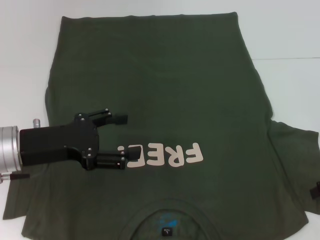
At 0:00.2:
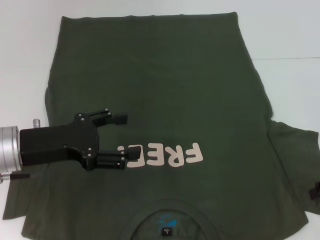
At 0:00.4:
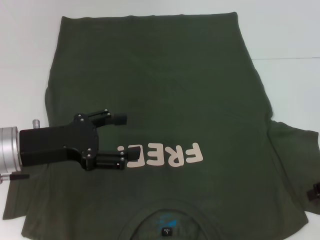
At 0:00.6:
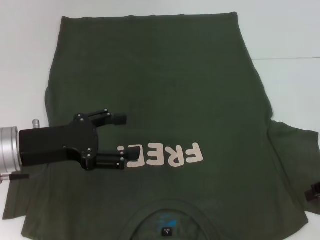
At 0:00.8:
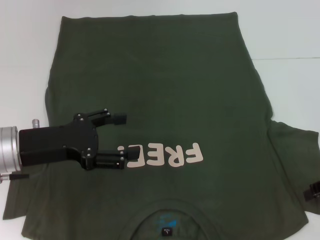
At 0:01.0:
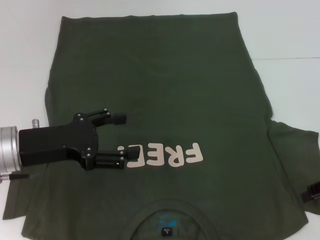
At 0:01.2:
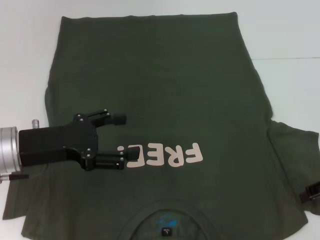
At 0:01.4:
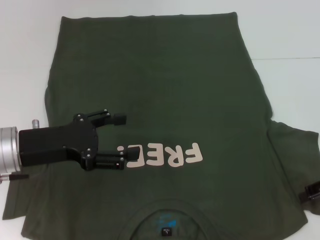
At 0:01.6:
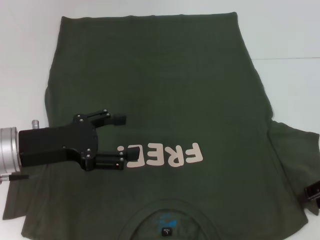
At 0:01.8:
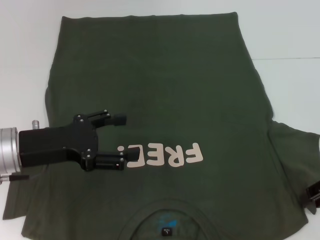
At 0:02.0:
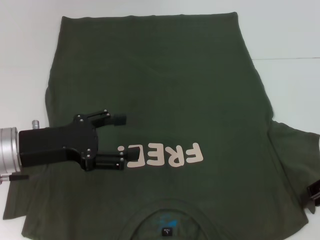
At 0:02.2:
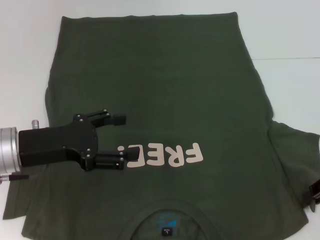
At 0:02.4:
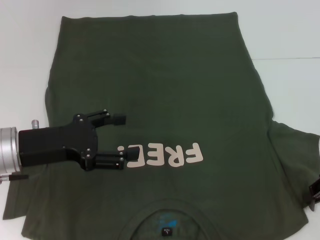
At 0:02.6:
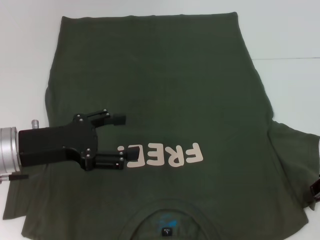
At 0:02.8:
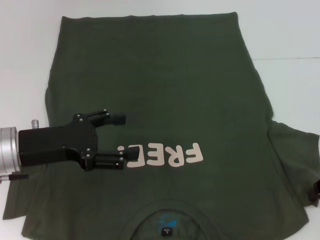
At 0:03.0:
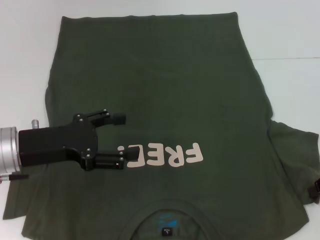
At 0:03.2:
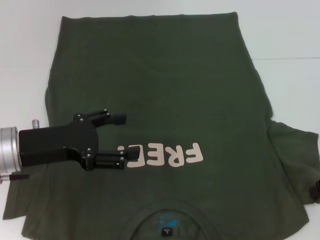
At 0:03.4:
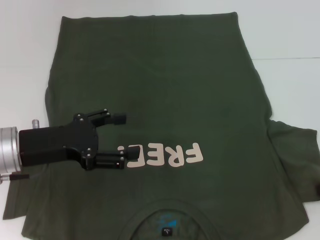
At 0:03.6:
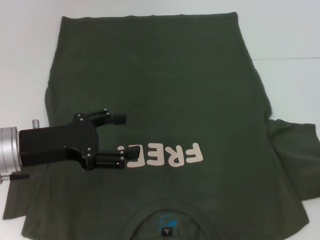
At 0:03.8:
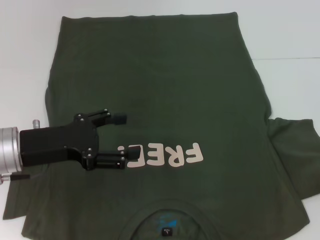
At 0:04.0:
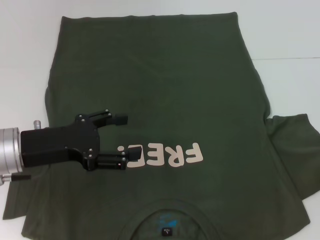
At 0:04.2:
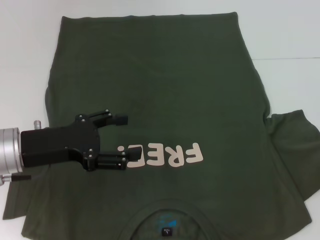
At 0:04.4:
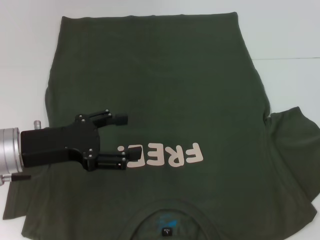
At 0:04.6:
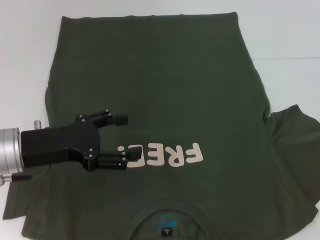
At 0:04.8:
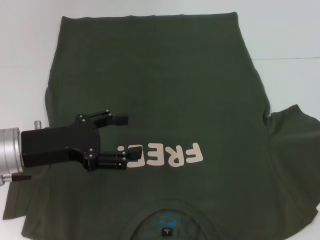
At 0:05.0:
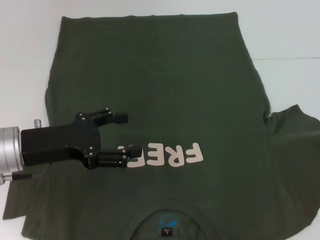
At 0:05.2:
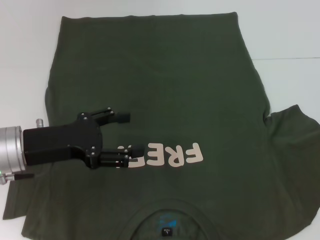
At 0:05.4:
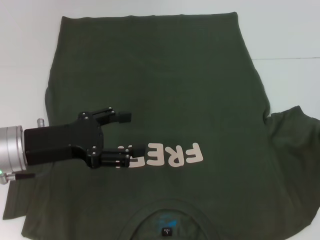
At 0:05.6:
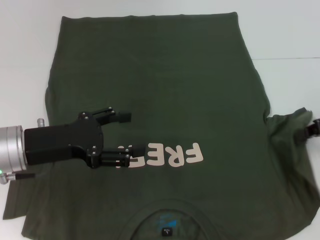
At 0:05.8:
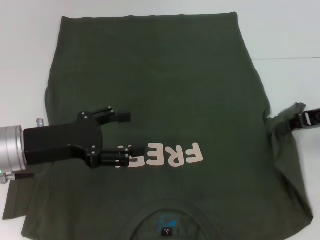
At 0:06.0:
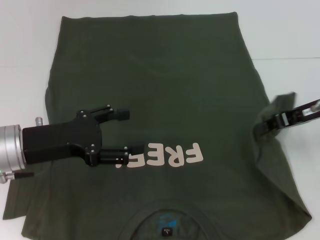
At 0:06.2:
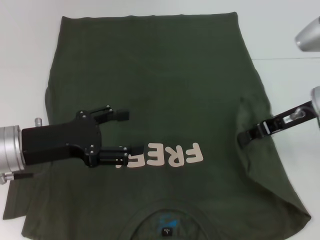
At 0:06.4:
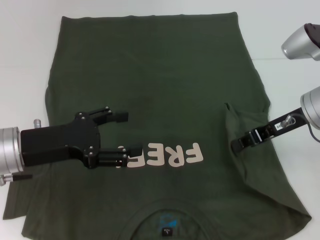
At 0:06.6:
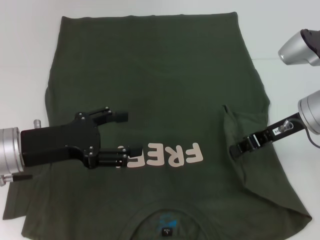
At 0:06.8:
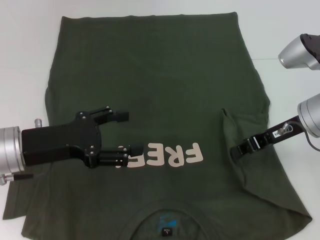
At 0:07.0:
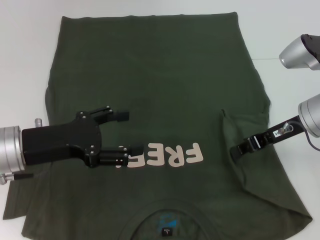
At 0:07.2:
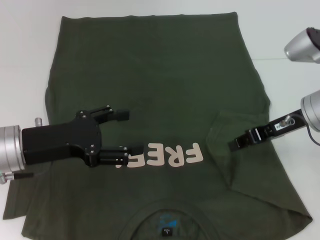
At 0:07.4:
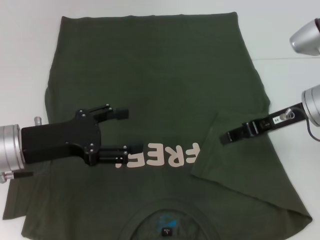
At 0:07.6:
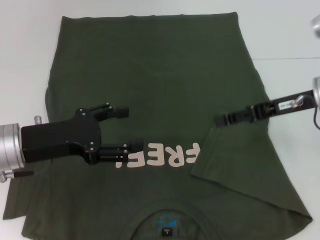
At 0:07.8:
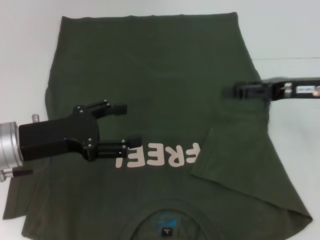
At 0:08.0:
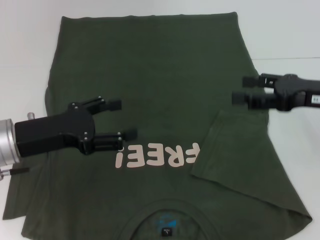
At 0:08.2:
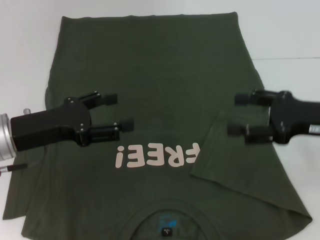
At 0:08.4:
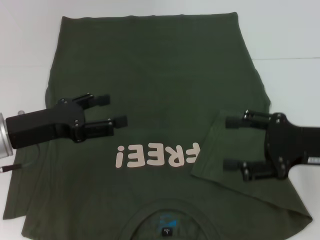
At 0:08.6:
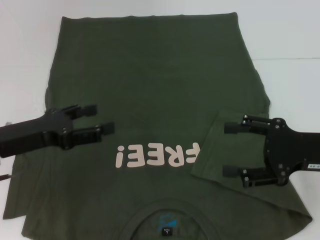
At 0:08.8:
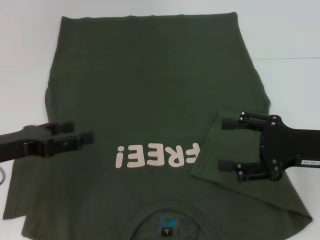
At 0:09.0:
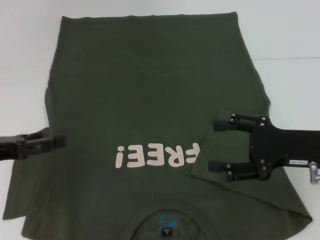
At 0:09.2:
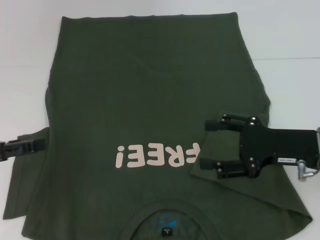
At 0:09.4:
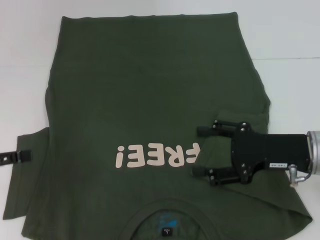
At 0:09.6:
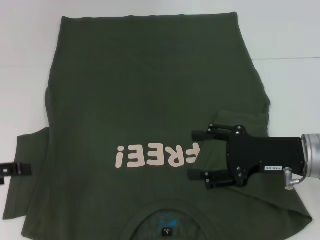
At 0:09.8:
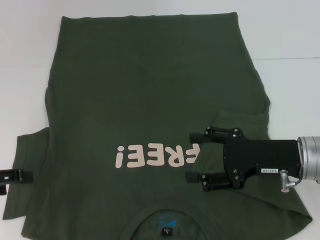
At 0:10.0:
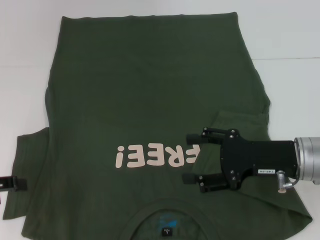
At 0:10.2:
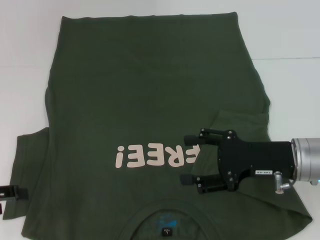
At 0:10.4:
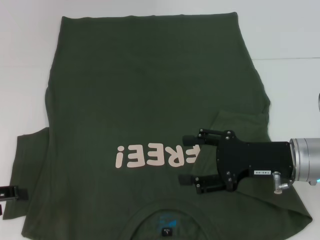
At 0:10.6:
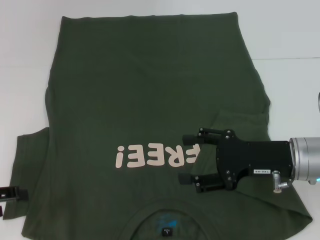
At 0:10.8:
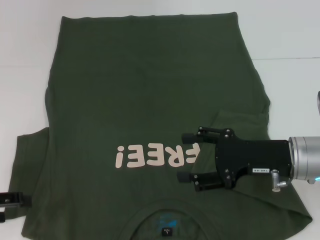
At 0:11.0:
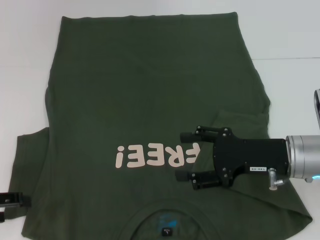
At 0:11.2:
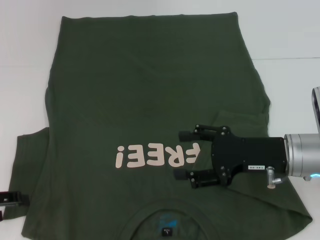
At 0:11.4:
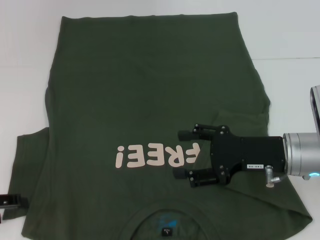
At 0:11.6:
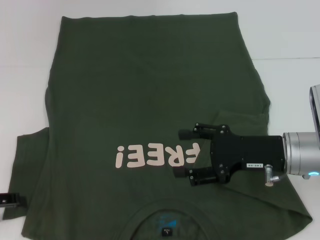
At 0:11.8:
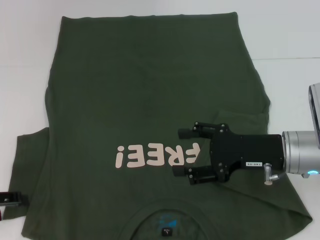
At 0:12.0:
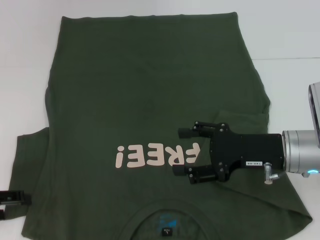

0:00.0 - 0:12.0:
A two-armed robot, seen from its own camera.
Step, 0:00.0 - 0:07.2: Fold the bottom right sleeve with your right hand.
0:00.0 - 0:01.6: The grippers stay close to where they were, moving slightly.
0:03.0 - 0:04.4: The right gripper changes place by some 5 cm.
0:04.4 - 0:06.0: The right gripper is displaced to the left by about 10 cm.
0:06.0 - 0:07.6: The right gripper opens up.
0:07.6 - 0:09.0: The right gripper shifts some 10 cm backward, and opens. The left gripper shifts approximately 10 cm to the left.
0:09.0 - 0:10.4: The left gripper ends up about 5 cm from where it was.
0:10.4 - 0:12.0: The grippers move only a little.

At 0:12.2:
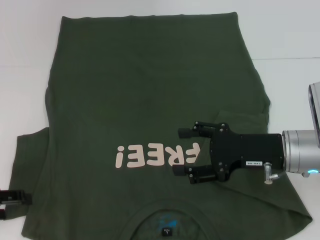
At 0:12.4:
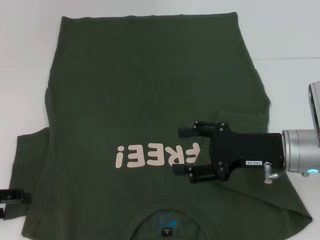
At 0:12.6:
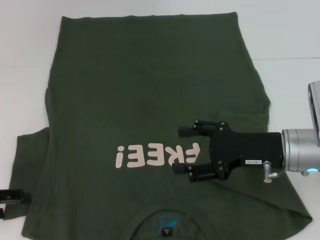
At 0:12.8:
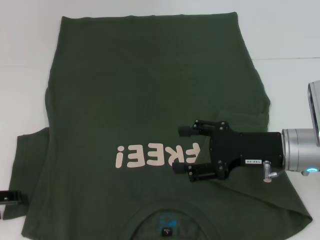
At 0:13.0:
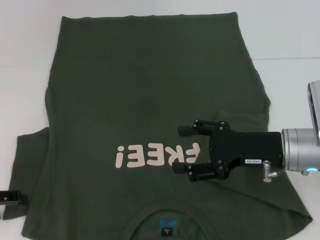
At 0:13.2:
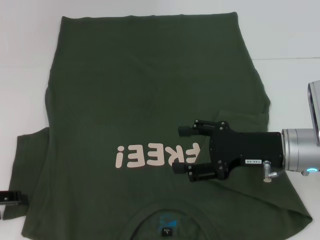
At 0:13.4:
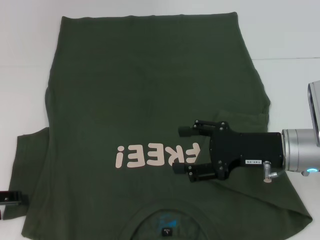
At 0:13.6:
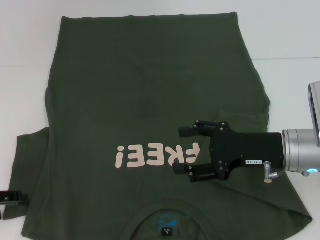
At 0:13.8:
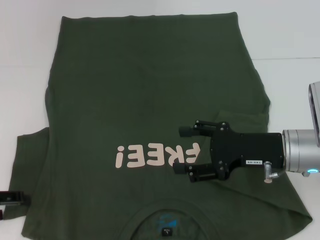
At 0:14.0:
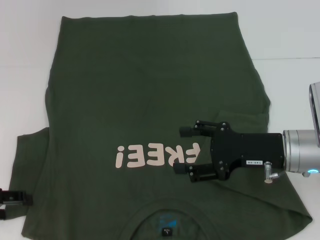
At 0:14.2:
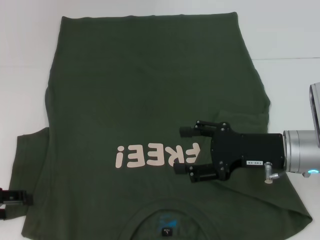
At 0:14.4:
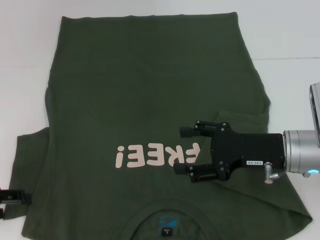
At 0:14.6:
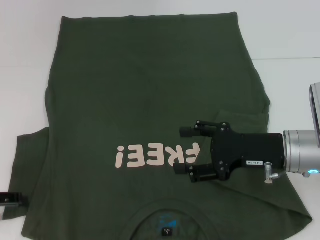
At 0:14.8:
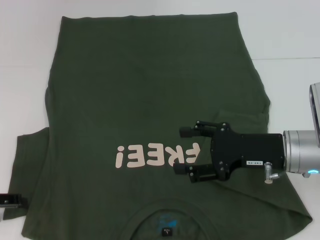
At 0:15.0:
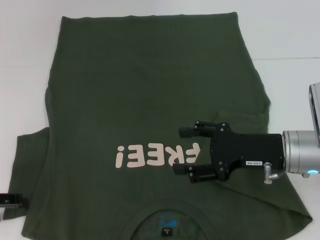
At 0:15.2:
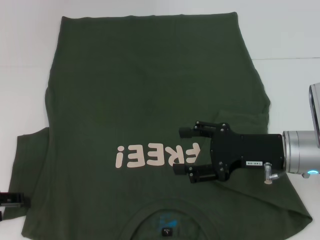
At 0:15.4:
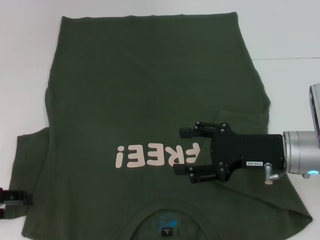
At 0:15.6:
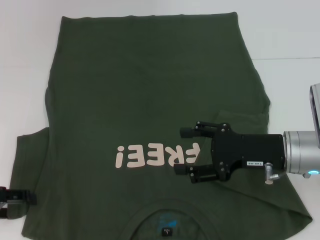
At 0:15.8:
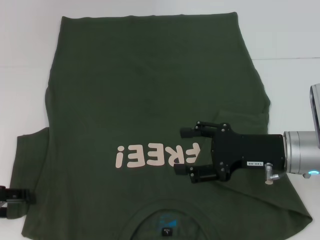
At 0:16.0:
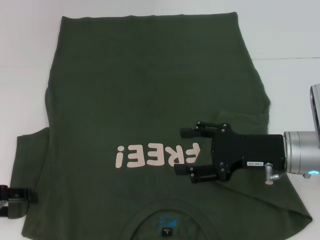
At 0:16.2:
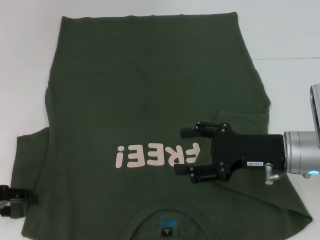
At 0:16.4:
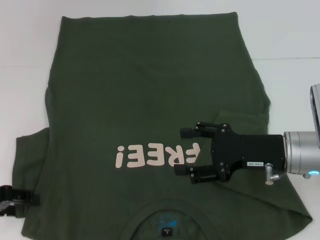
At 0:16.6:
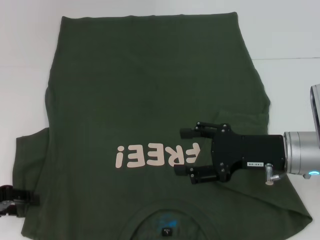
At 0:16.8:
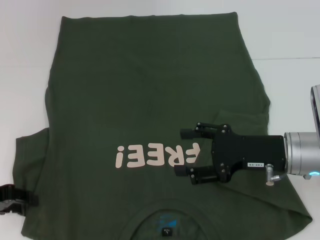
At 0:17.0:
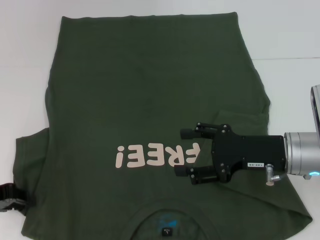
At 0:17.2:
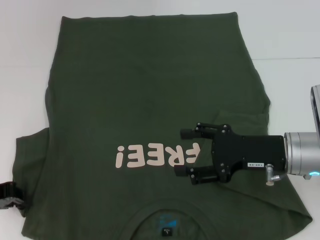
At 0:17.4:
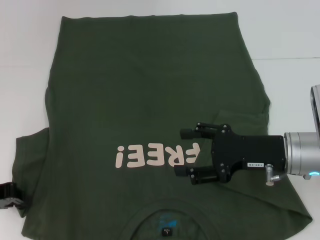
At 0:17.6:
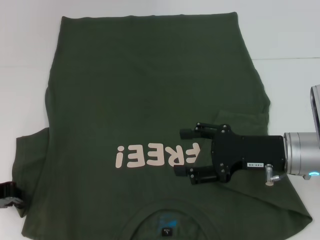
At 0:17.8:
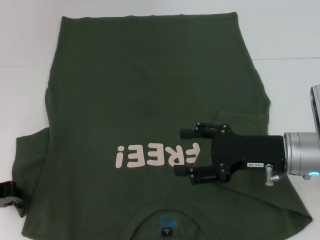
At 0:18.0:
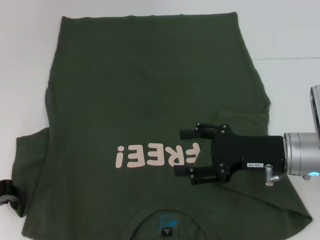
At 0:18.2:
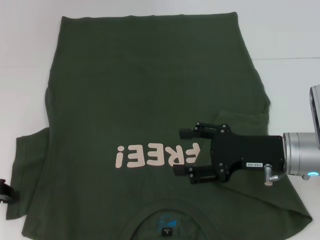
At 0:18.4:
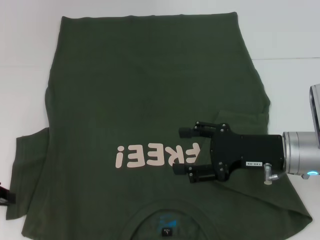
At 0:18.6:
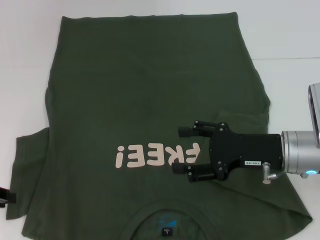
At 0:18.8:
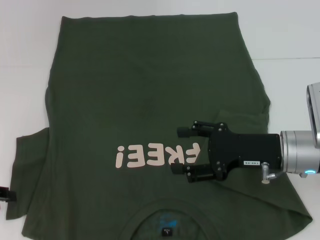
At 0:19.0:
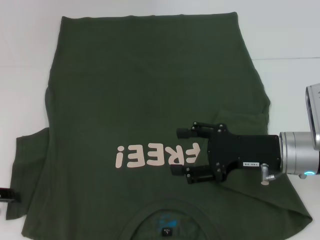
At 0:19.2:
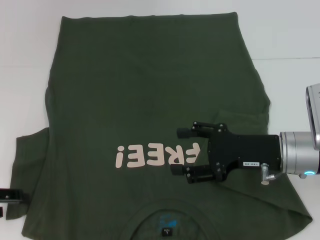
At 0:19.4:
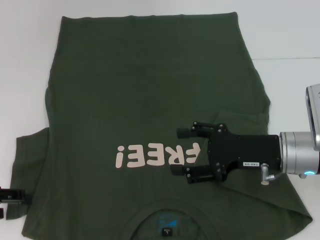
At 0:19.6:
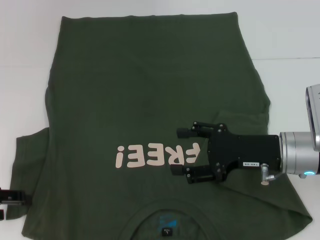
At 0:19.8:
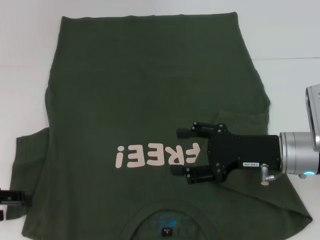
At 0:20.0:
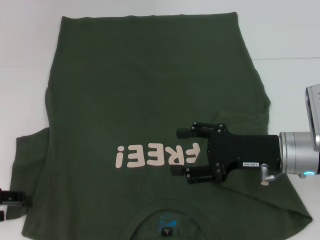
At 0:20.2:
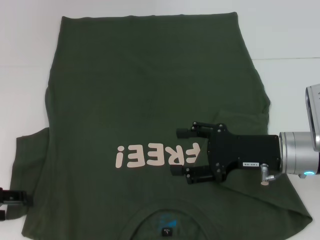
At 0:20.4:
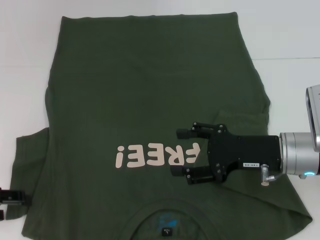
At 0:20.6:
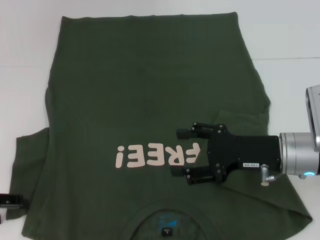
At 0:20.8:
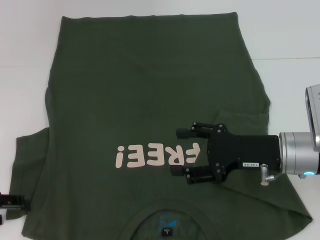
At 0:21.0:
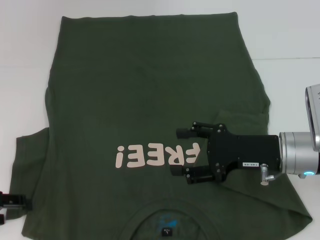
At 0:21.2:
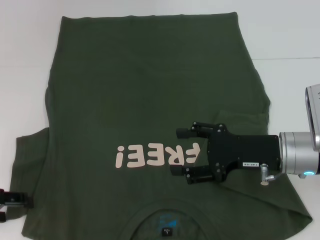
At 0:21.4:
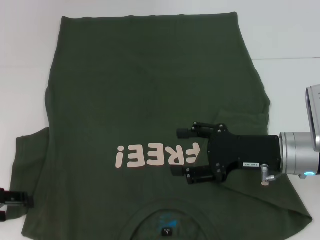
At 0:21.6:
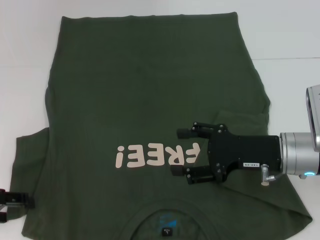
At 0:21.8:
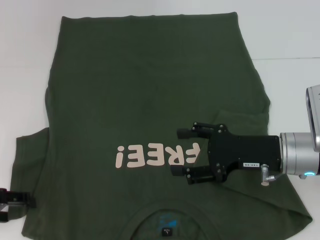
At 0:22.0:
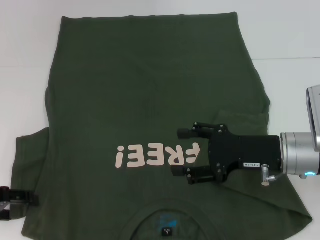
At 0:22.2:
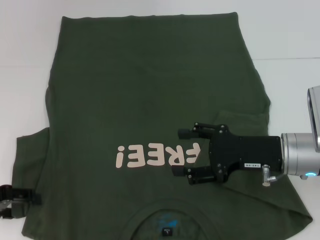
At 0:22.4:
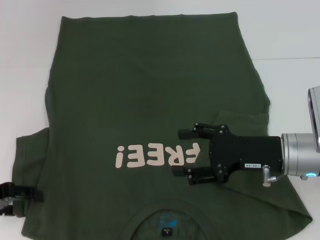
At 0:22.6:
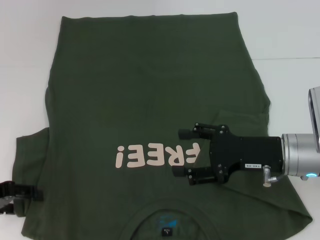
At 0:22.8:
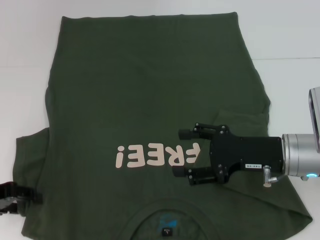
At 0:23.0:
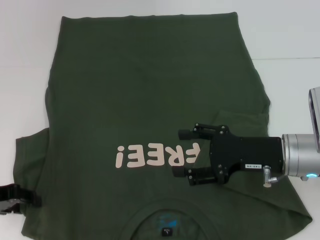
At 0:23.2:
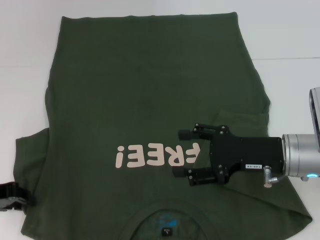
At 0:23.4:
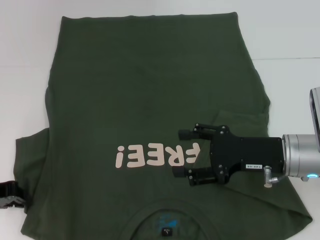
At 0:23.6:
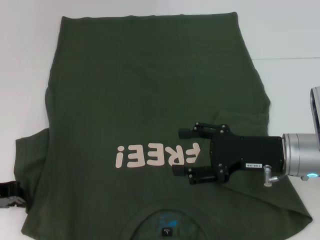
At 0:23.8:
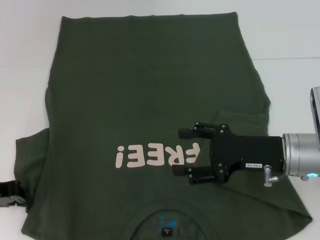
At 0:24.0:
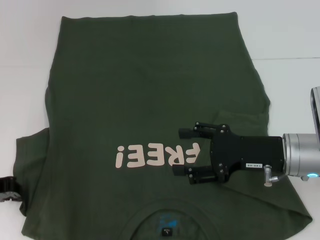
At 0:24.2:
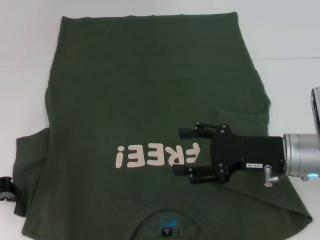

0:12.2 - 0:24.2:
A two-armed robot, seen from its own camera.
0:12.2 - 0:15.2: Both grippers stay put.
0:15.2 - 0:16.6: The grippers make only small movements.
0:16.6 - 0:18.2: The left gripper closes up.
0:18.2 - 0:19.8: The left gripper opens up.
0:19.8 - 0:21.2: The two grippers keep their place.
0:21.2 - 0:22.6: The grippers stay close to where they were, moving slightly.
0:22.6 - 0:24.2: The left gripper closes its fingers.
